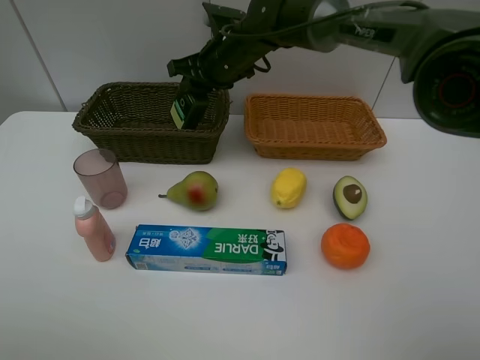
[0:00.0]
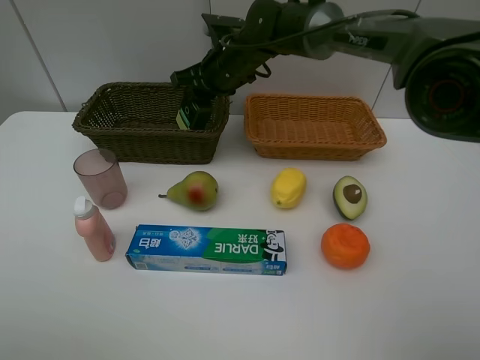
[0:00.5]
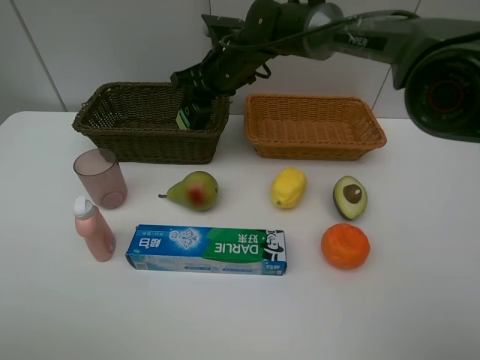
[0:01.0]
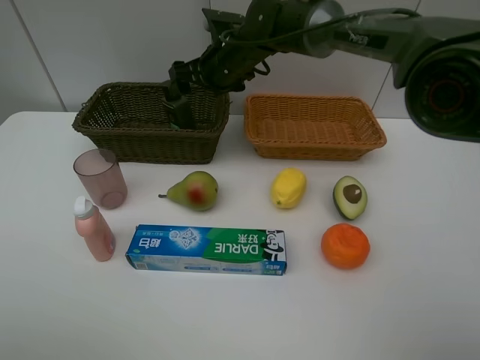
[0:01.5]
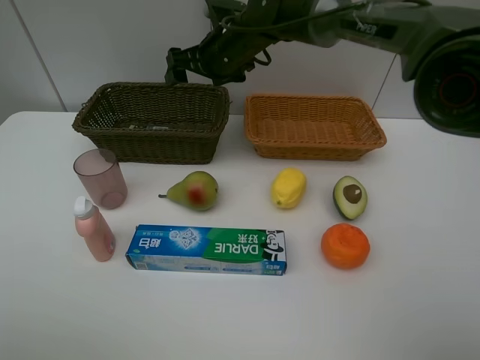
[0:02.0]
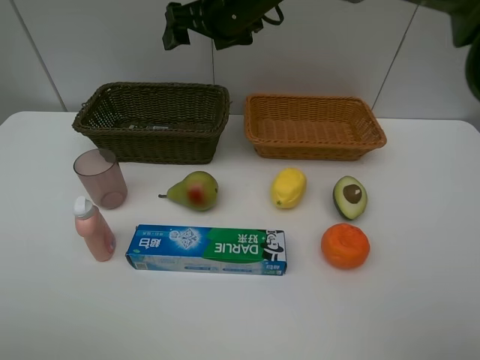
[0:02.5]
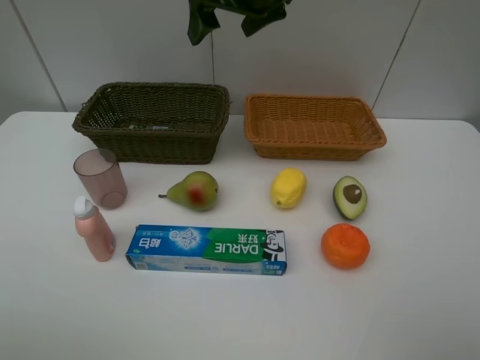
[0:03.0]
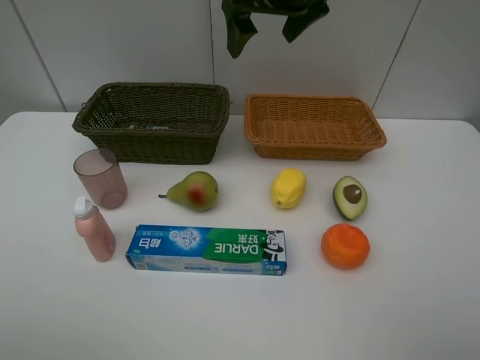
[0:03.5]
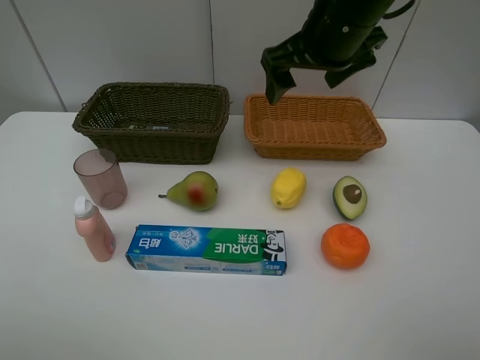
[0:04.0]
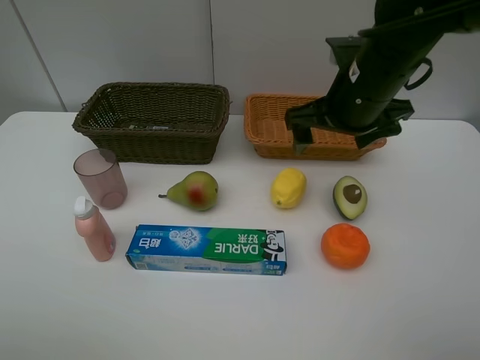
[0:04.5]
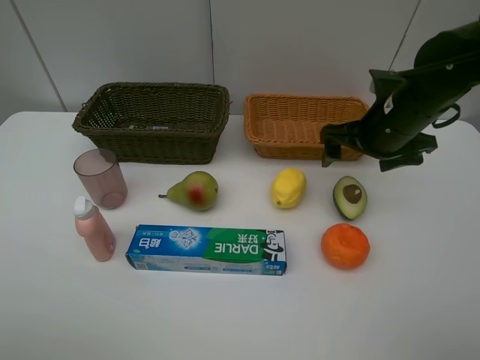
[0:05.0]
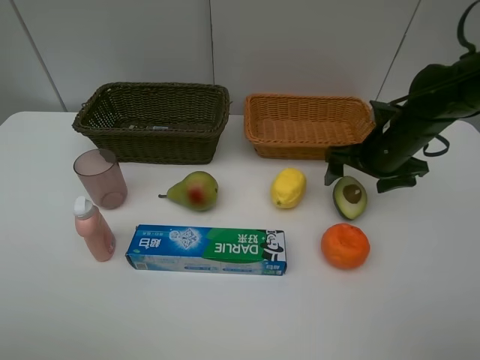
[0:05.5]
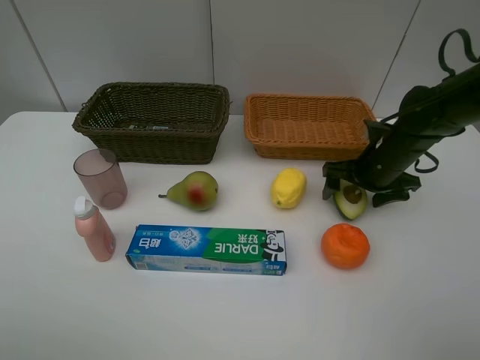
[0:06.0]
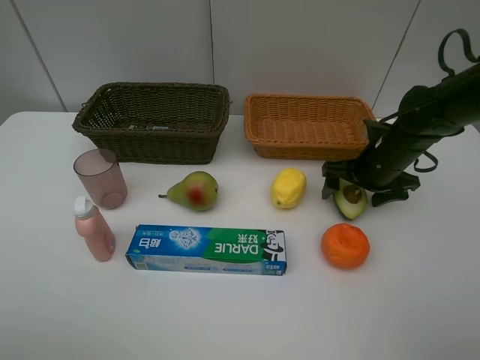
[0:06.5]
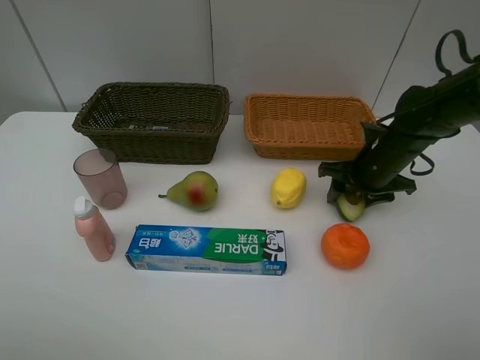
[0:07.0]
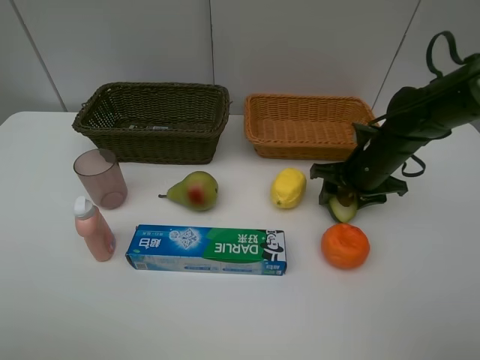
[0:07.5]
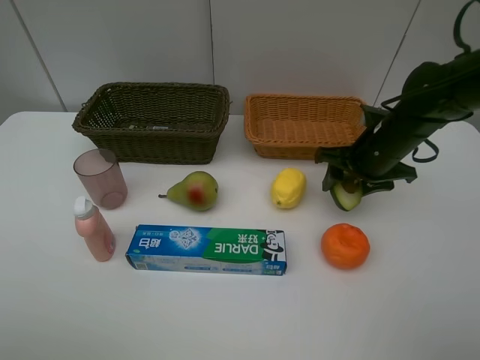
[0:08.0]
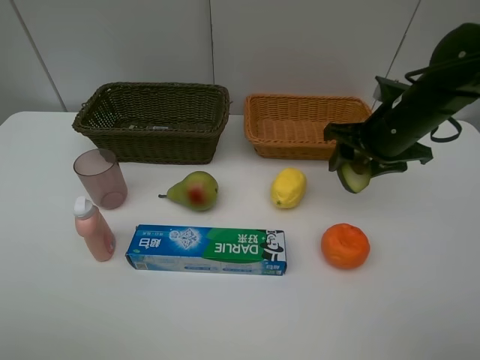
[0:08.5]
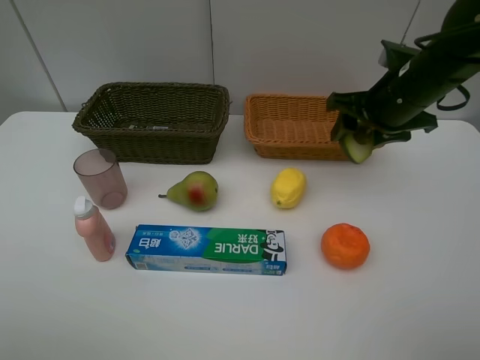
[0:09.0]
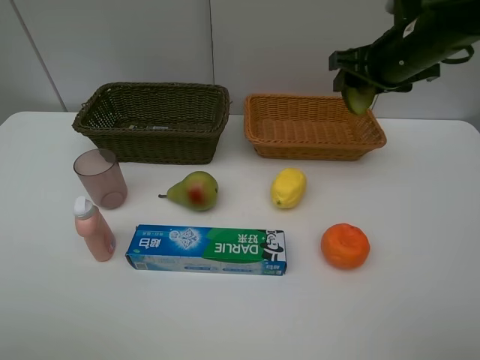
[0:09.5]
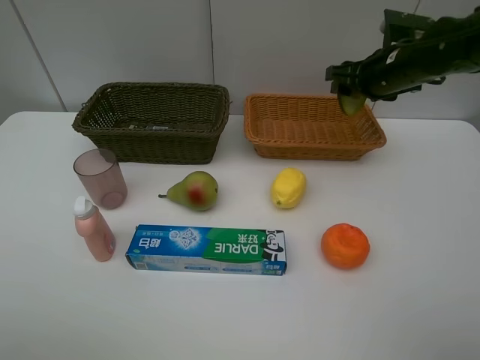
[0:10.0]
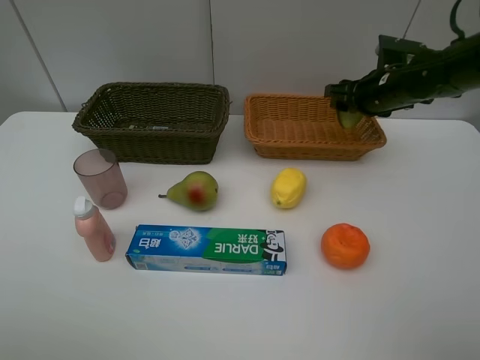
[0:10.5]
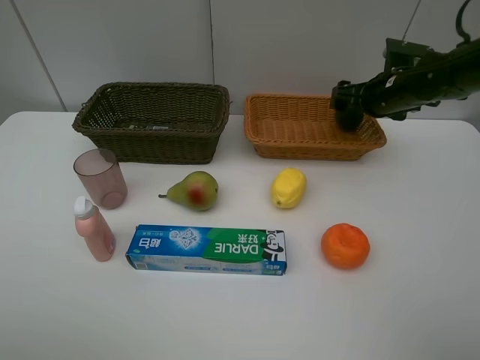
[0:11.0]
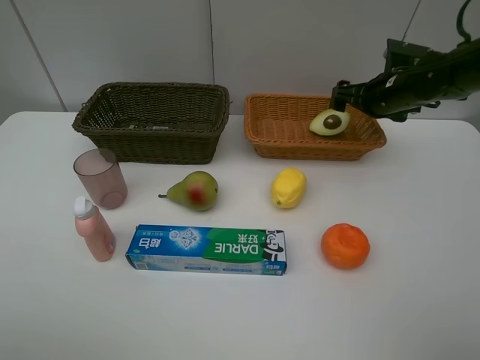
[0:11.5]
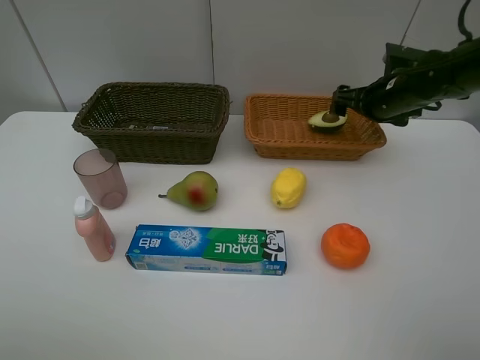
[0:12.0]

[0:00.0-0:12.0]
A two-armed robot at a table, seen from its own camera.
Task of the whole recording: Place multiple objects separately in different baskets.
Step, 0:02.0 to 0:08.0: Pick up the avocado with right gripper.
Step, 0:08.5 to 0:11.0: Place the avocado in the light basket with right gripper.
0:00.0 to 0:02.0: The right gripper opens up.
0:02.0 to 0:04.0: The right gripper travels backward, to the right and upward by roughly 20 cm.
0:04.0 to 0:06.0: The right gripper is displaced downward and to the right by some 25 cm.
0:06.0 to 0:08.0: The right gripper closes up.
0:08.0 to 0:10.0: The right gripper moves forward and upward, approximately 10 cm.
0:10.0 to 0:12.0: The right gripper opens up.

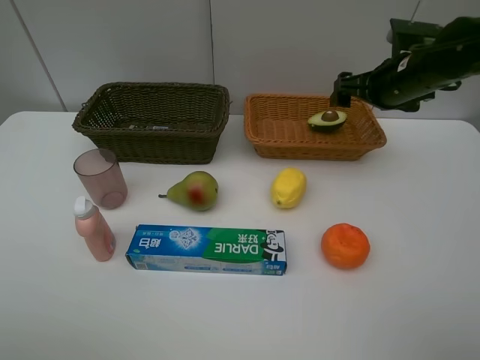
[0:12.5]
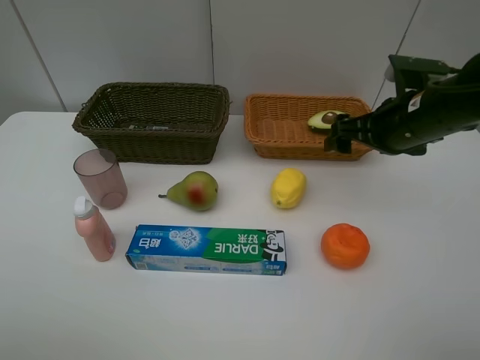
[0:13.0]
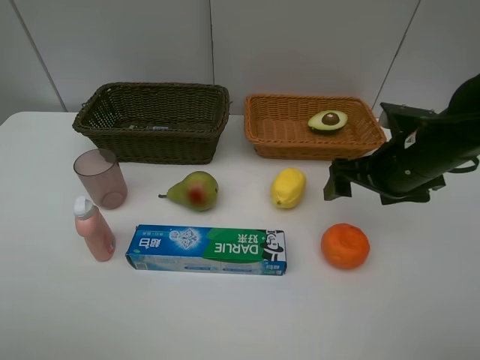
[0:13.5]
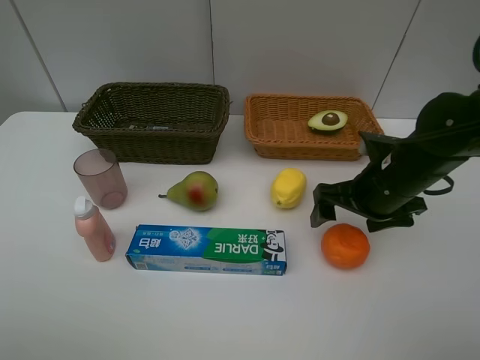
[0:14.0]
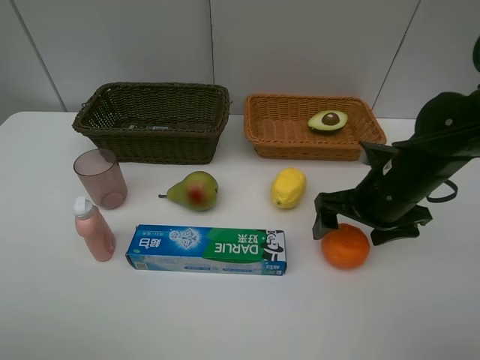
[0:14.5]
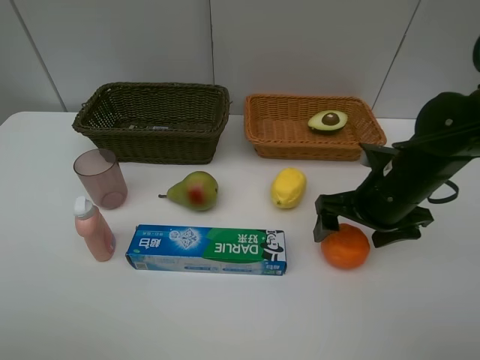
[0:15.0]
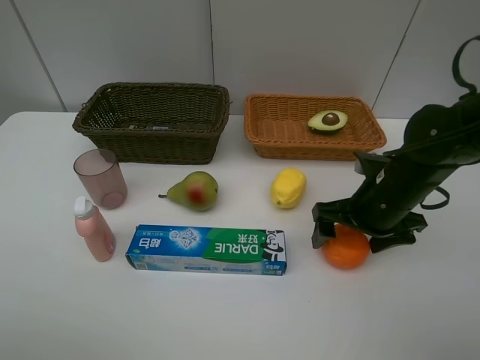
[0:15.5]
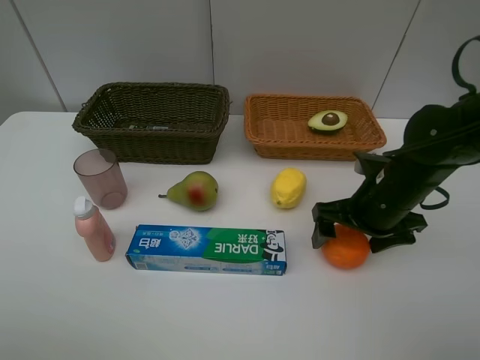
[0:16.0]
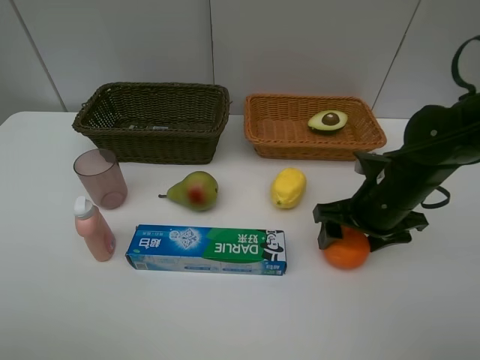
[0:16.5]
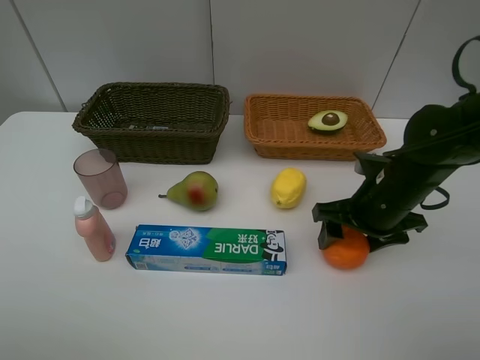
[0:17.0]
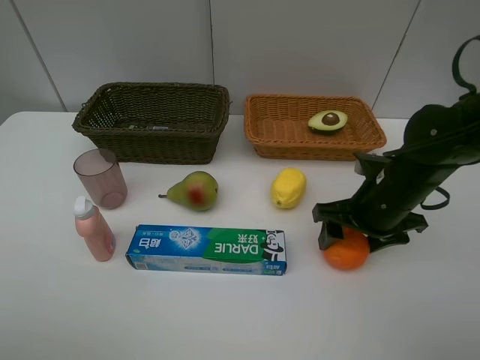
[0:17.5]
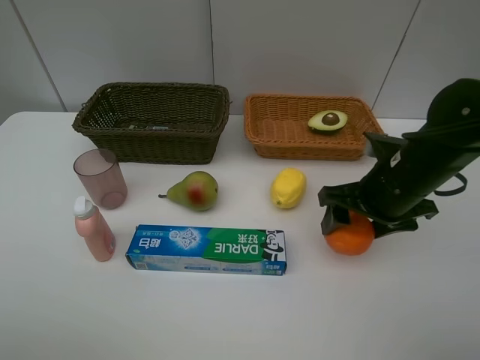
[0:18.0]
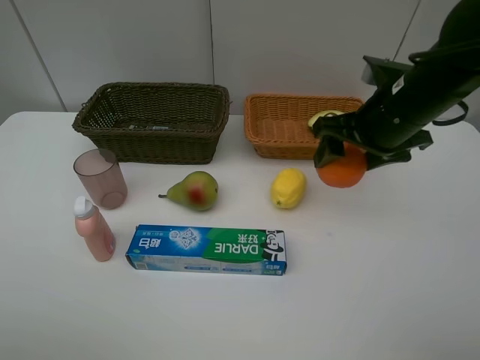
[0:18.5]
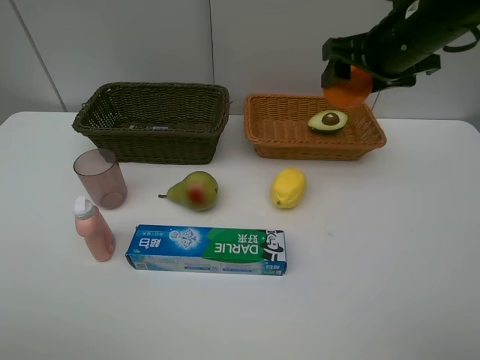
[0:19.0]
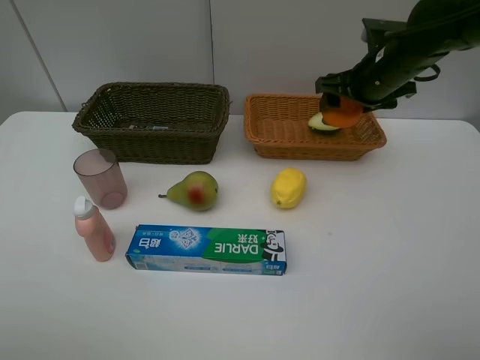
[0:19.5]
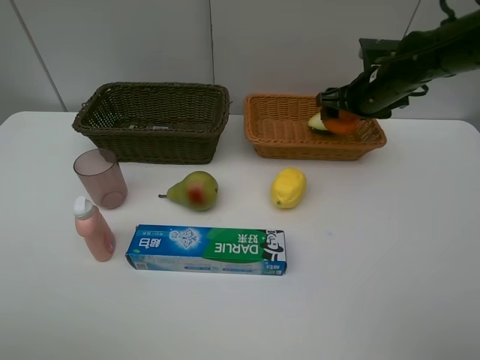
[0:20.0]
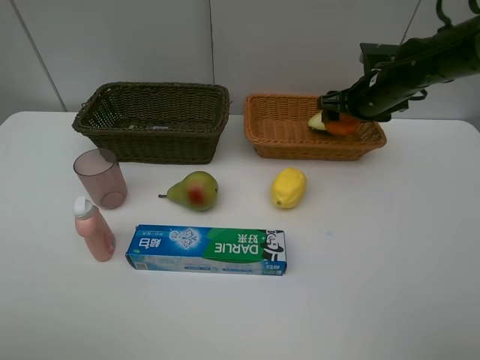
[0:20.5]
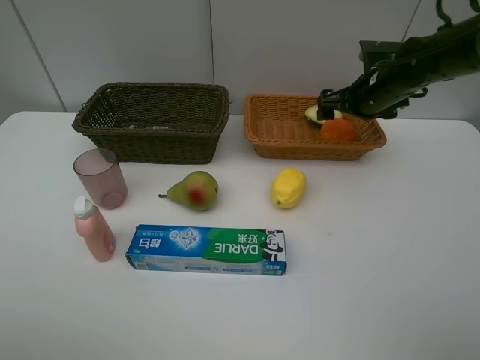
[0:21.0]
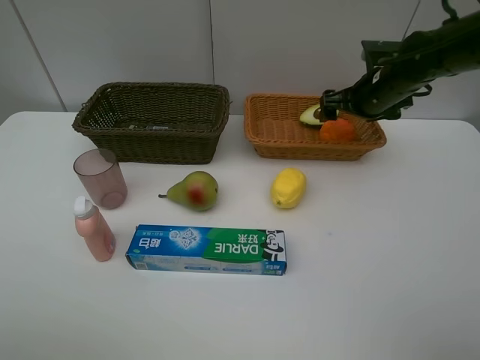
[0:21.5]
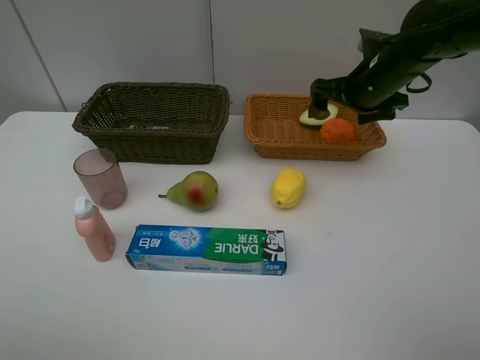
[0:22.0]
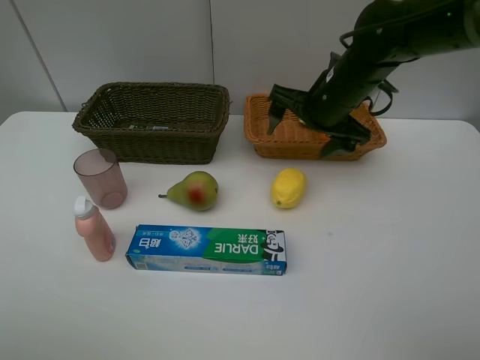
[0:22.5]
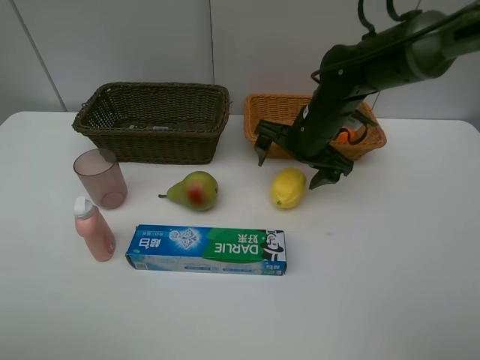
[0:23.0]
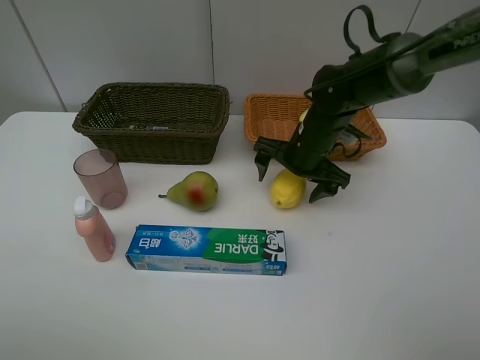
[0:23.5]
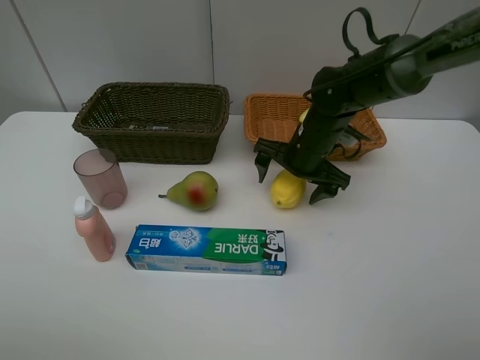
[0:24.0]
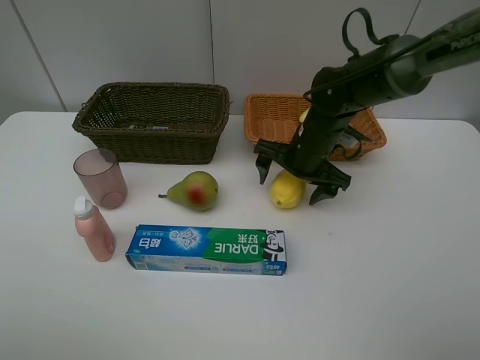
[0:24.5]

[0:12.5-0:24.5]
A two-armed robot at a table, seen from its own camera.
Task of the whole recording: Place multiple objects separately in different baskets.
Step, 0:12.5 to 0:17.5: Pick up the orange with right gripper.
Step, 0:18.0 to 0:21.0: Place the orange in the light basket with right gripper.
0:12.5 to 0:14.5: The right gripper goes about 15 cm backward and downward.
0:14.5 to 0:16.5: The right gripper closes its fingers.
0:16.5 to 0:18.5: The right gripper travels upward by approximately 10 cm.
0:18.5 to 0:20.5: The right gripper heads forward and downward, covering roughly 15 cm.
0:20.5 to 0:22.5: The right gripper goes some 10 cm to the left and backward, and opens.
0:22.5 to 0:24.5: The right gripper is displaced downward by approximately 10 cm.

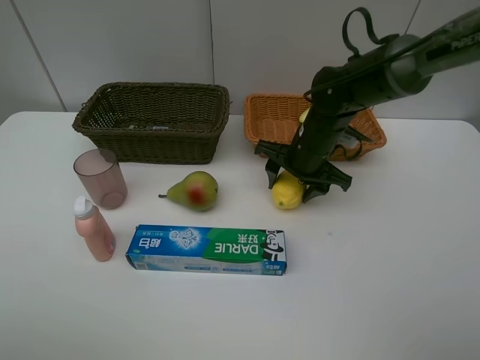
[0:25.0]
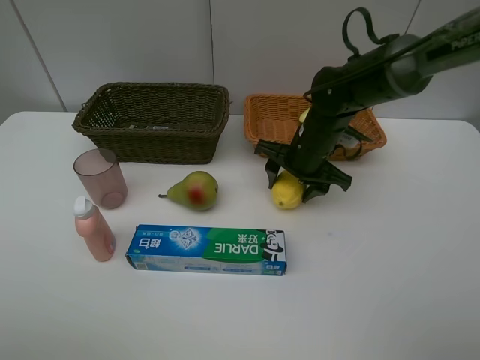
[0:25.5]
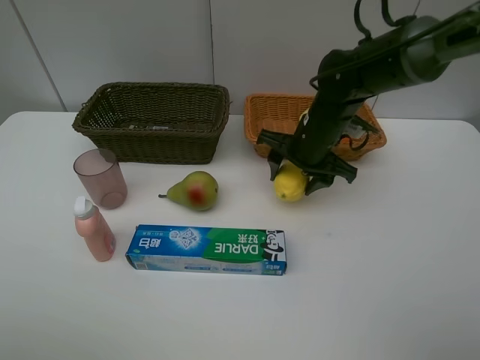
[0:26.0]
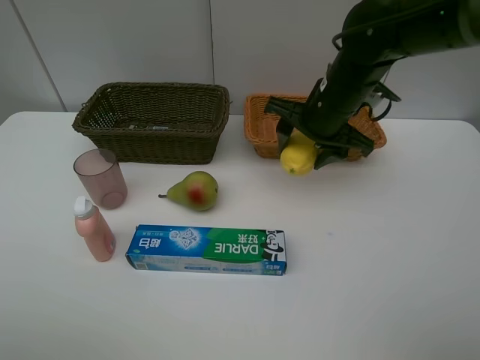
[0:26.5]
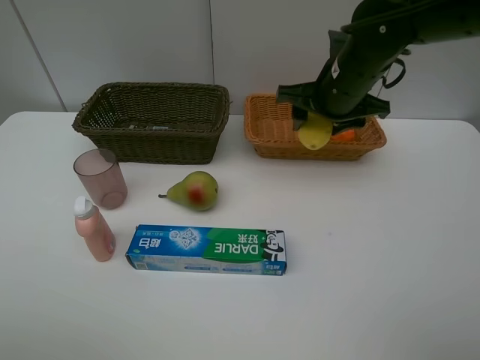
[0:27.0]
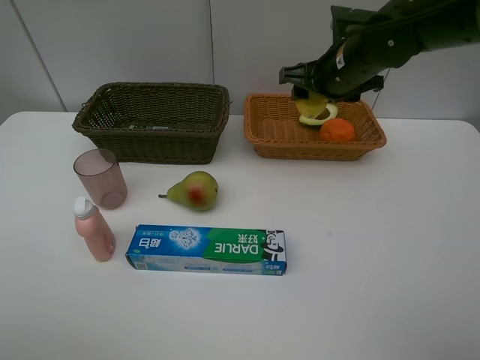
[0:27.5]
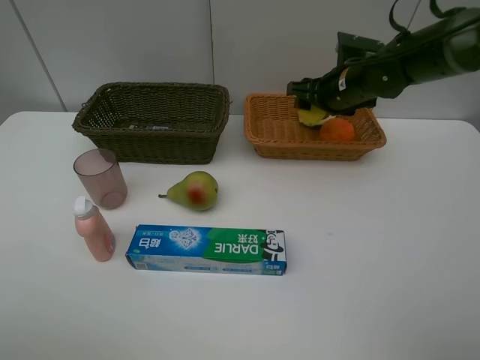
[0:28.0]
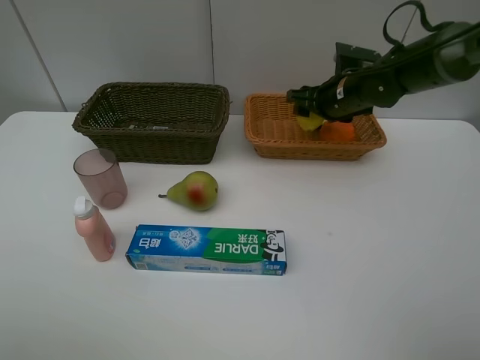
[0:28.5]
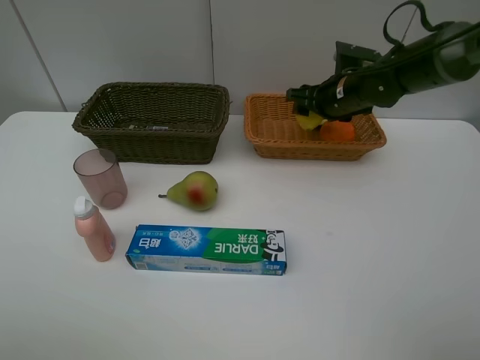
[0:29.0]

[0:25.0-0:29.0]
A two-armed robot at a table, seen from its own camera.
Task of the whole recording: Place multiple objects separately in different baskets.
0:25.0 to 0:27.0: The right gripper heads upward, covering roughly 10 cm.
0:27.0 to 0:29.0: The right gripper moves forward and downward, roughly 10 cm.
